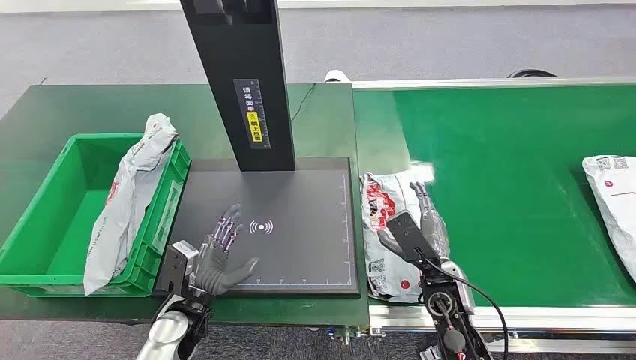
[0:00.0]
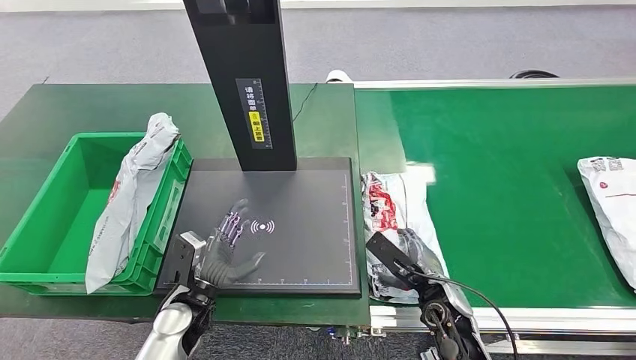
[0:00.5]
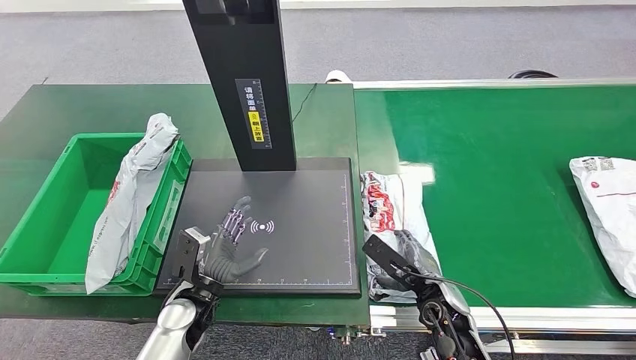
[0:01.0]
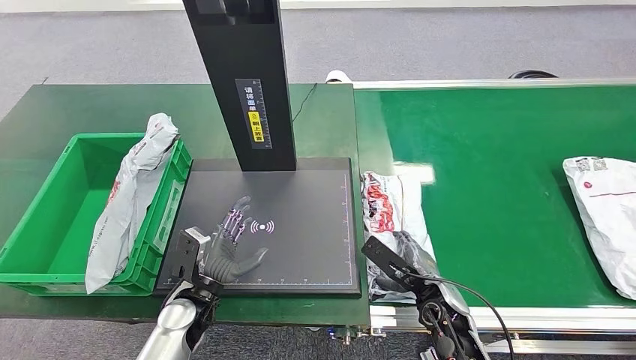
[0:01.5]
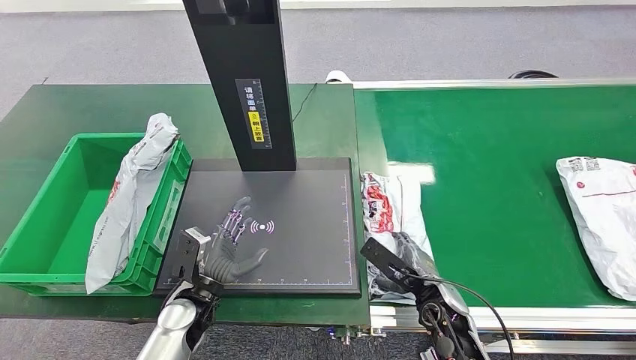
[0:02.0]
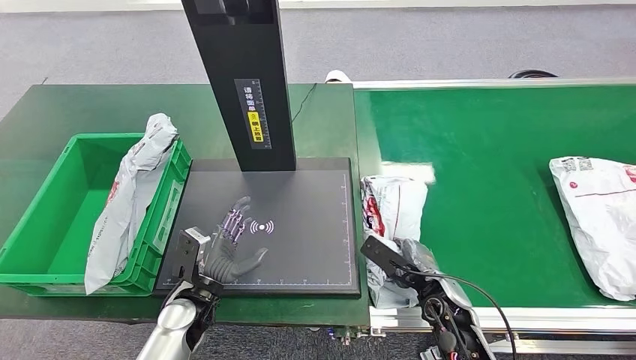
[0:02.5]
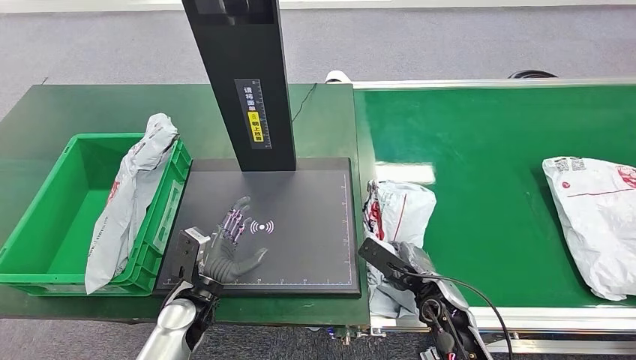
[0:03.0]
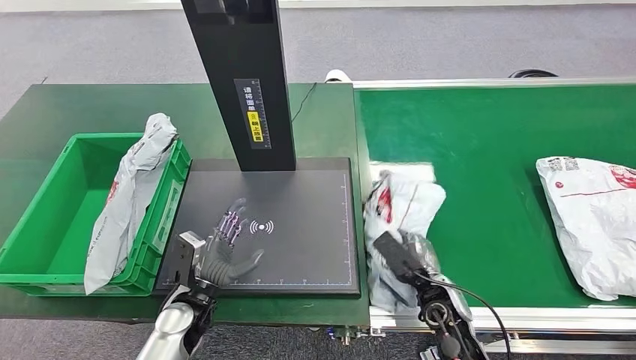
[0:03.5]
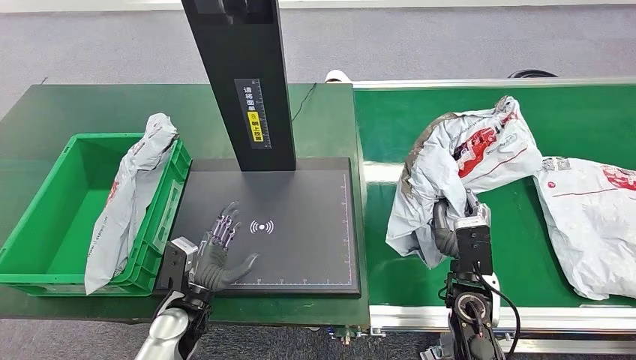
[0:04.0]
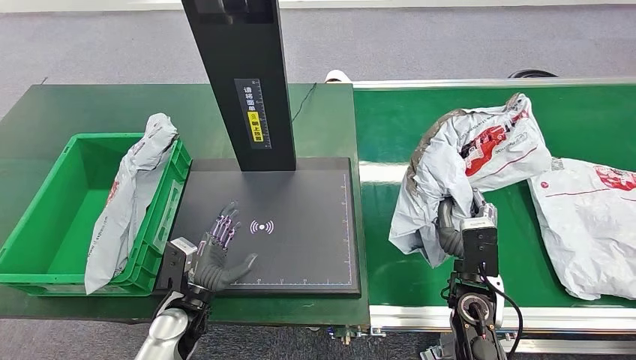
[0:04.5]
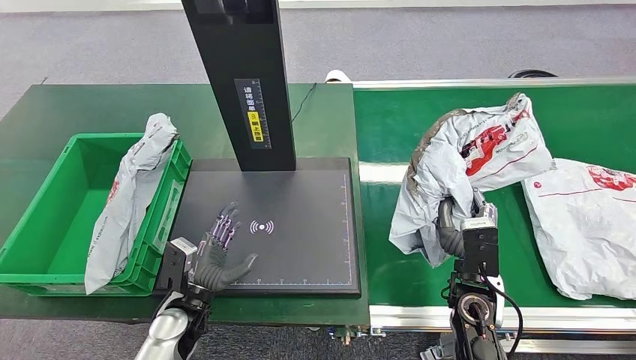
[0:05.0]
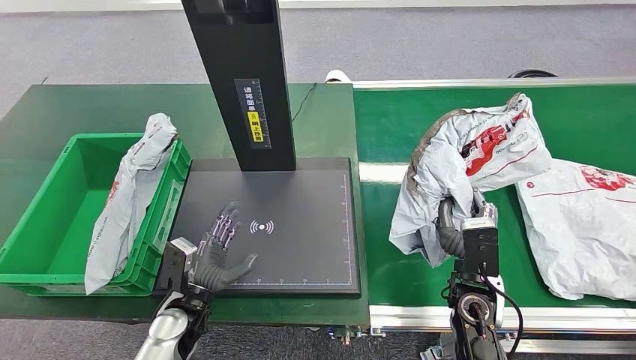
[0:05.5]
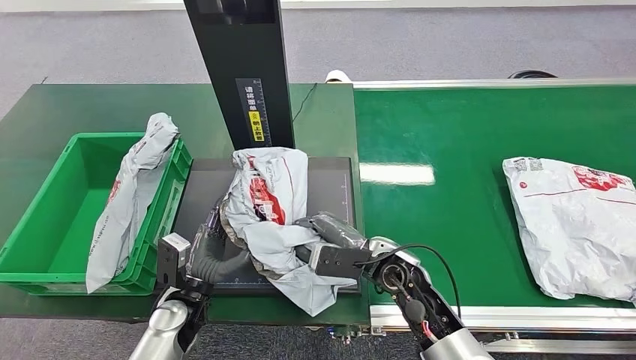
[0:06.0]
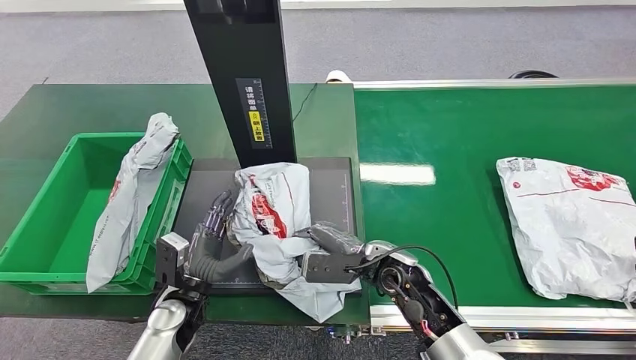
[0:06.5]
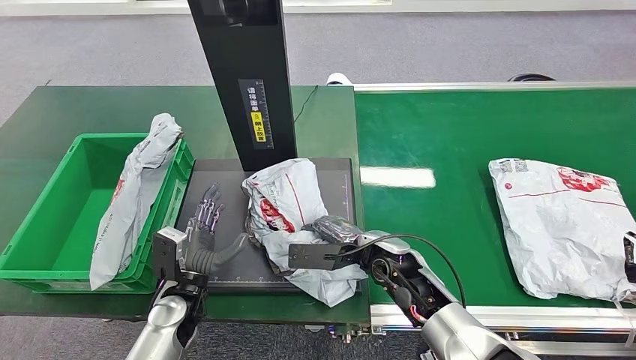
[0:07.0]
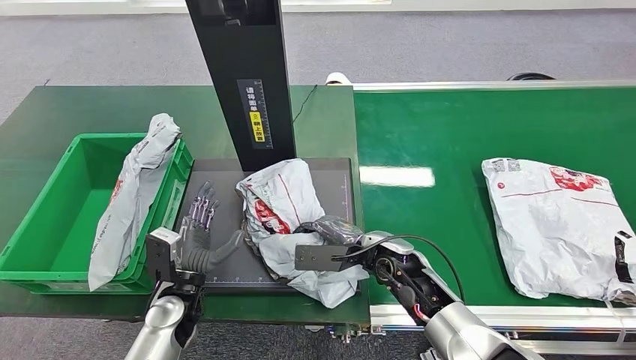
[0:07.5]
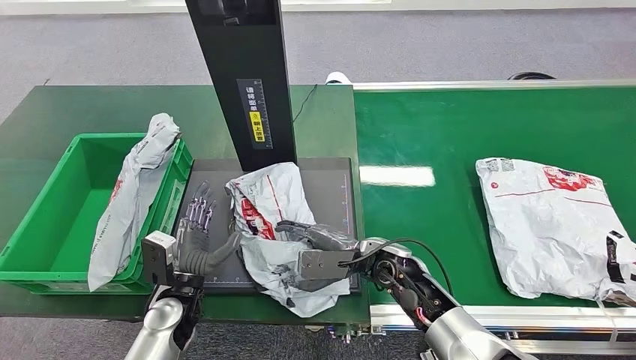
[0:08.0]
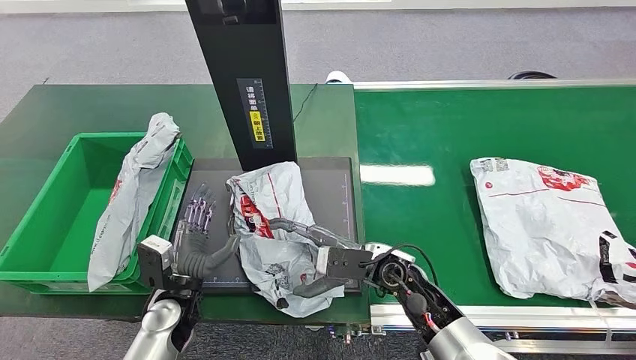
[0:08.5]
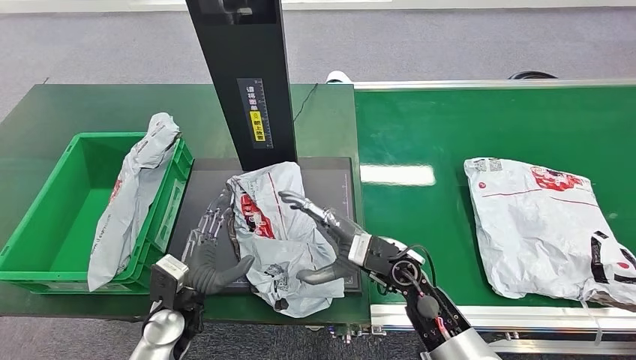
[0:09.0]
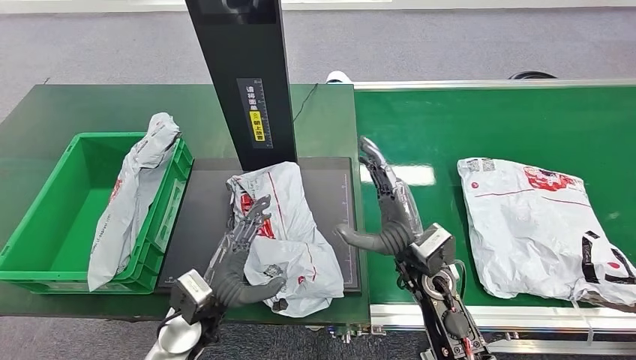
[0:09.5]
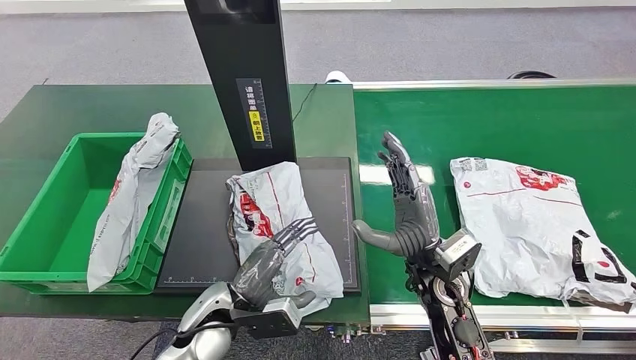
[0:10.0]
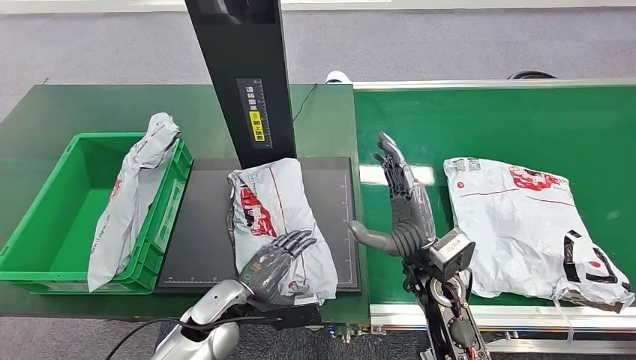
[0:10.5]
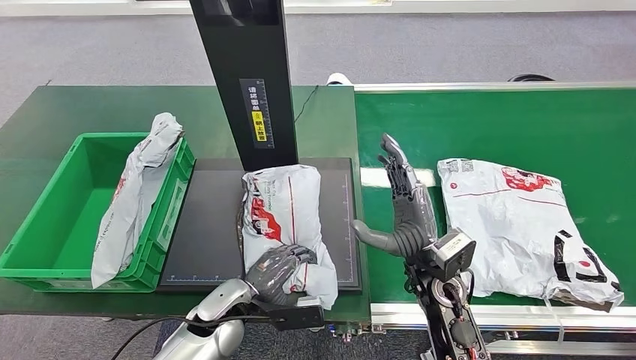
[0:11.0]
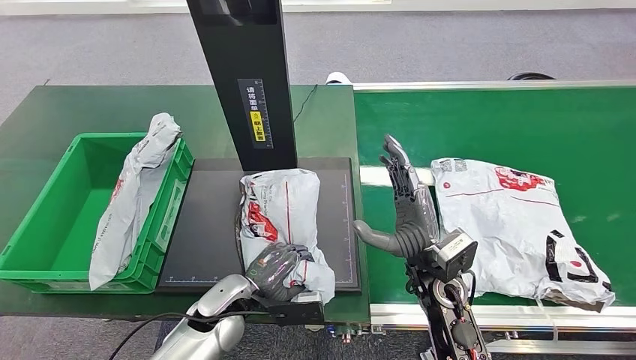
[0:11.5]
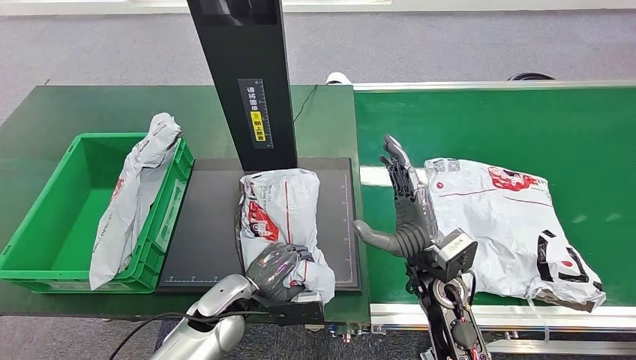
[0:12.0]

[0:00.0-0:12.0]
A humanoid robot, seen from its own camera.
Step, 0:00.0 to 0:04.5: Pick up the package from the conveyor belt.
Step, 0:05.0 to 0:09.0: Place the package onto the inbound machine.
0:02.0 to 0:04.0: The right hand heads upward, covering approximately 5 cm.

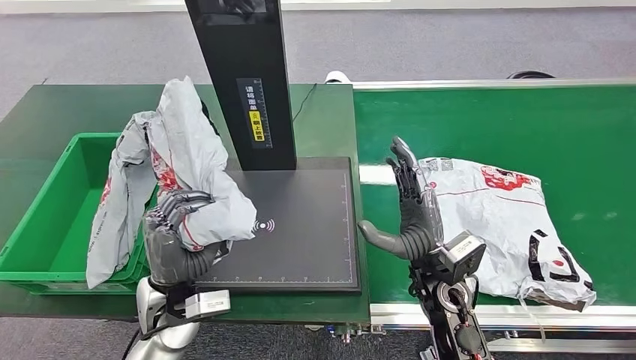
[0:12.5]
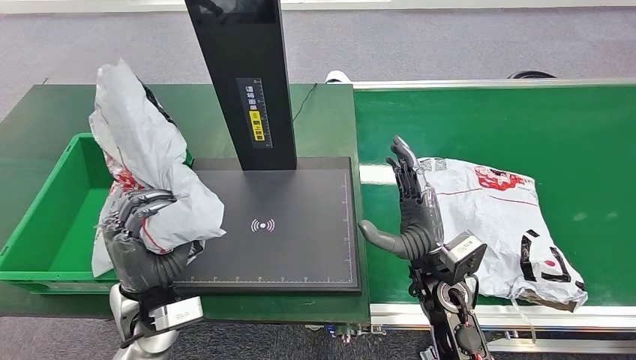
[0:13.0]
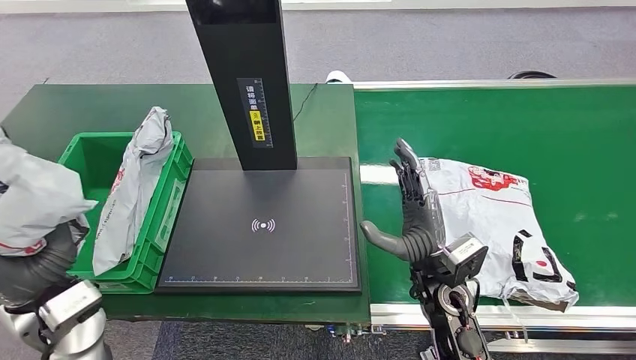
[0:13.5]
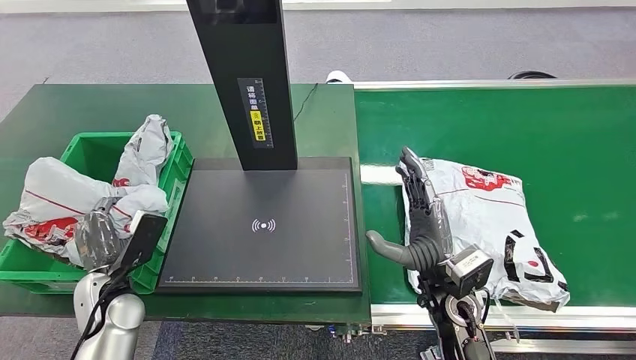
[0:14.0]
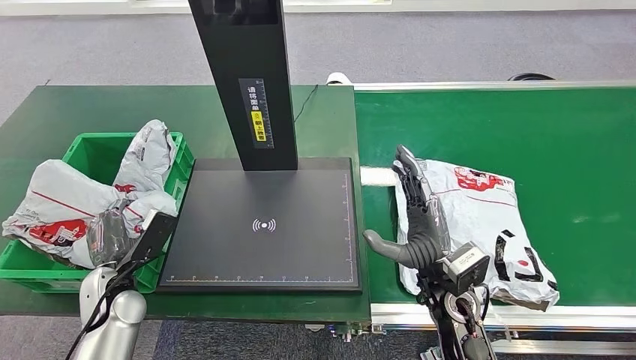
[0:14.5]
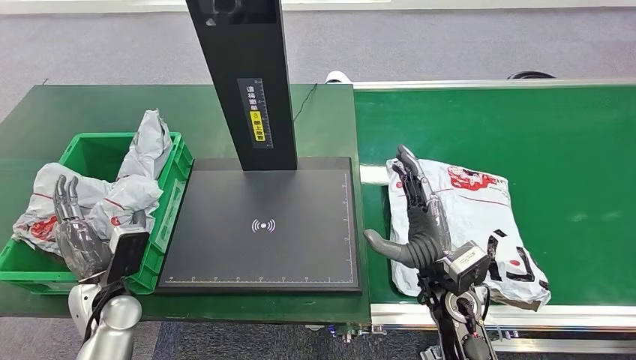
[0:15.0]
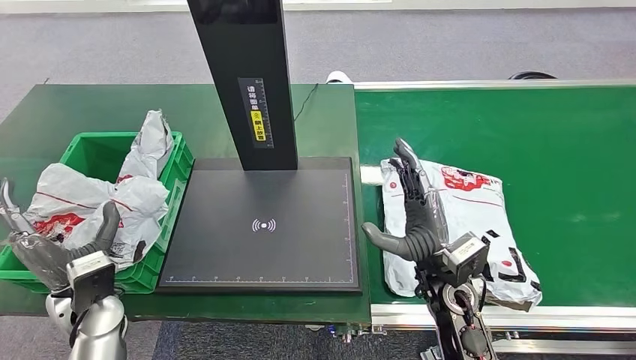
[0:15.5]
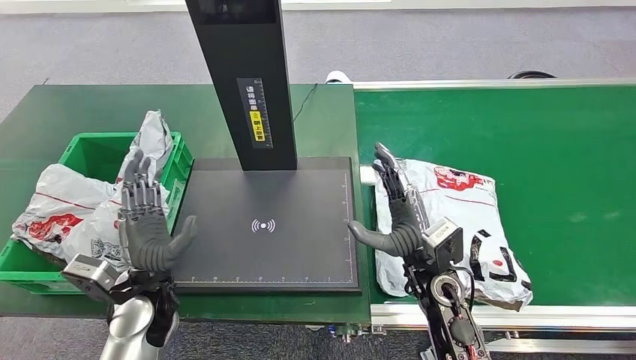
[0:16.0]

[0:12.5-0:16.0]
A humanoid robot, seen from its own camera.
Step, 0:13.5 to 0:16.0: Place the package into the parcel locker.
